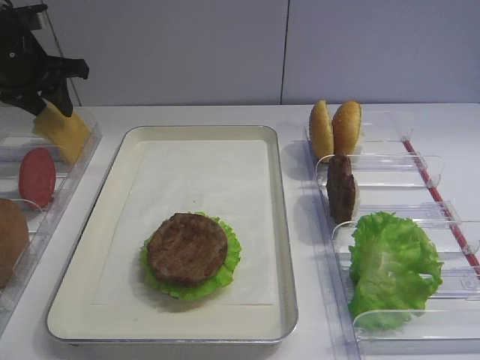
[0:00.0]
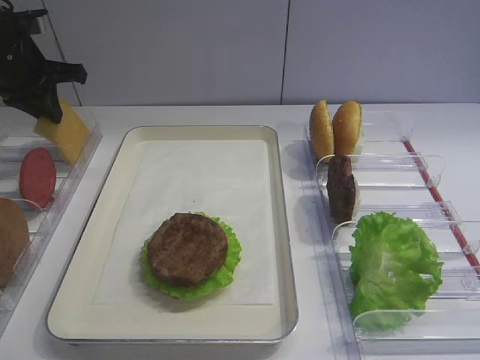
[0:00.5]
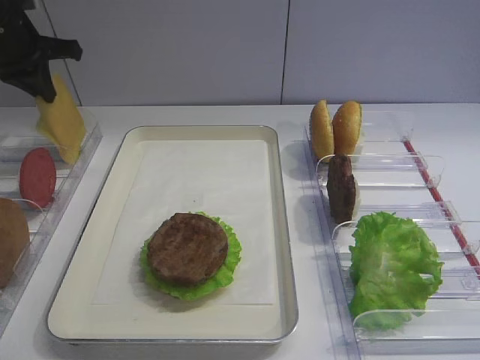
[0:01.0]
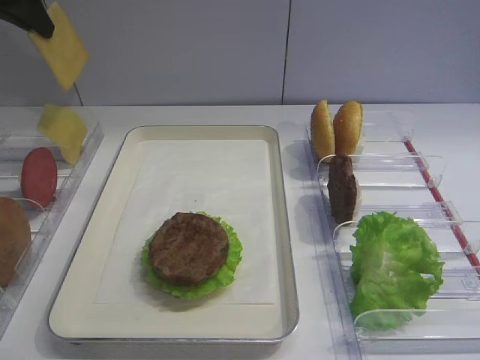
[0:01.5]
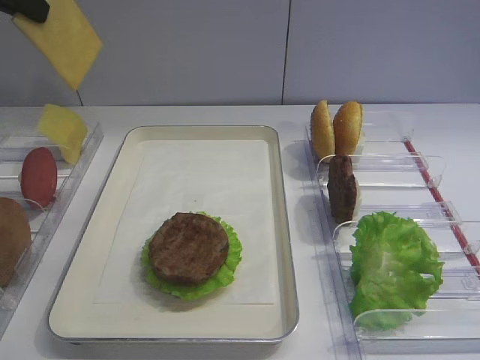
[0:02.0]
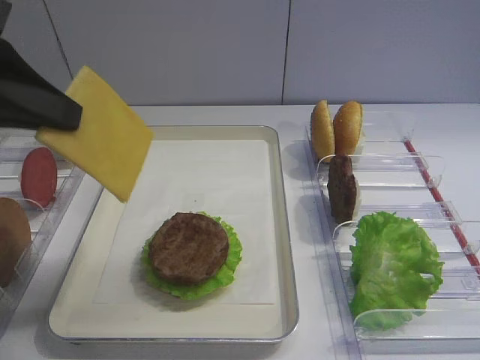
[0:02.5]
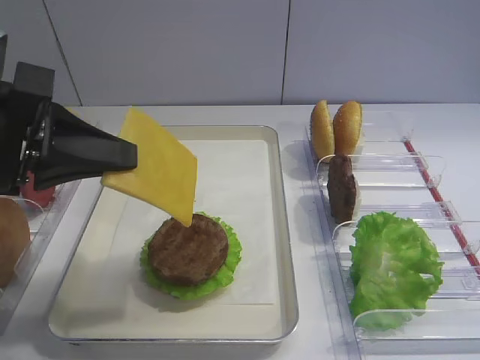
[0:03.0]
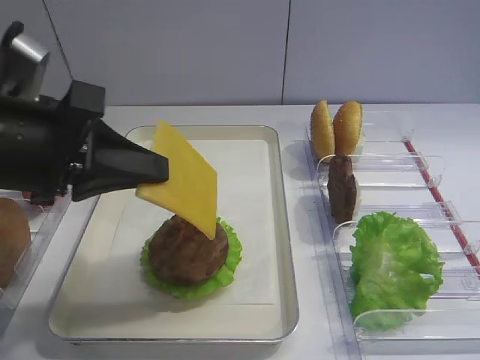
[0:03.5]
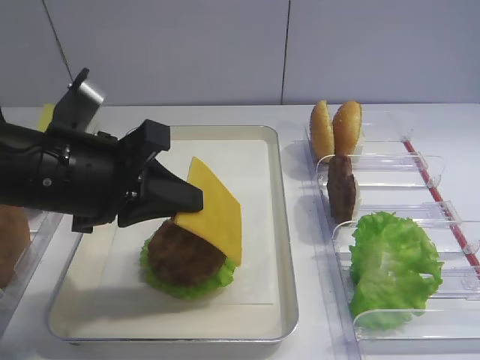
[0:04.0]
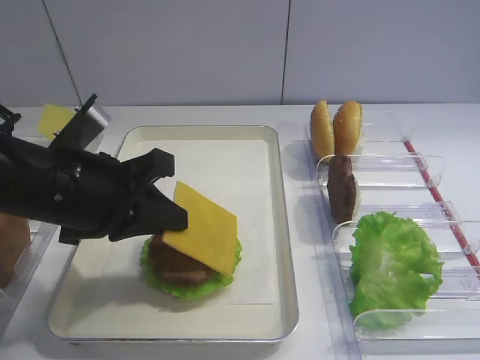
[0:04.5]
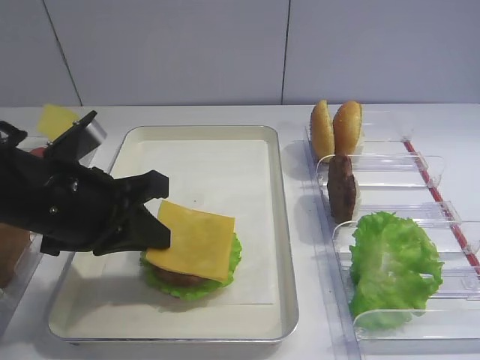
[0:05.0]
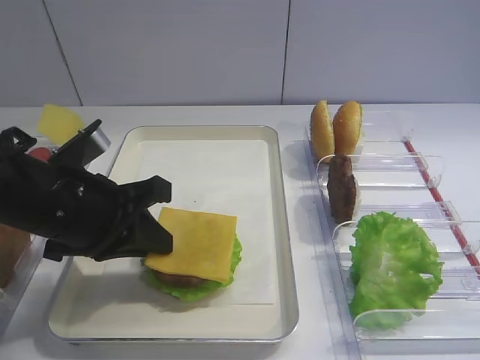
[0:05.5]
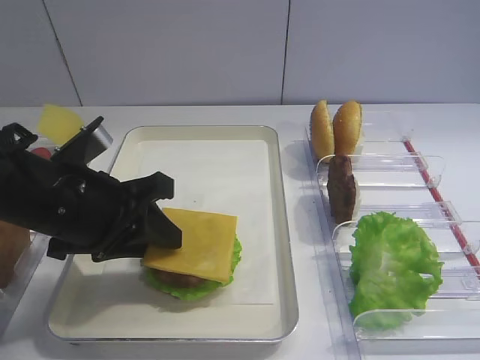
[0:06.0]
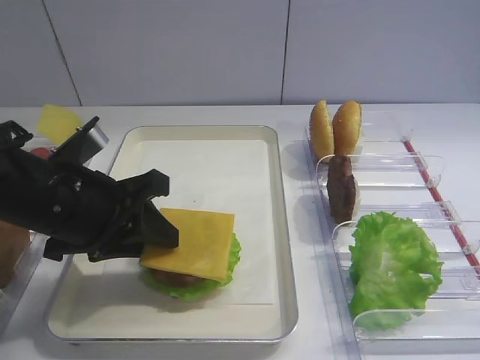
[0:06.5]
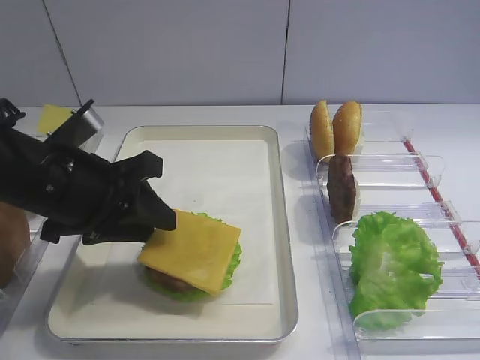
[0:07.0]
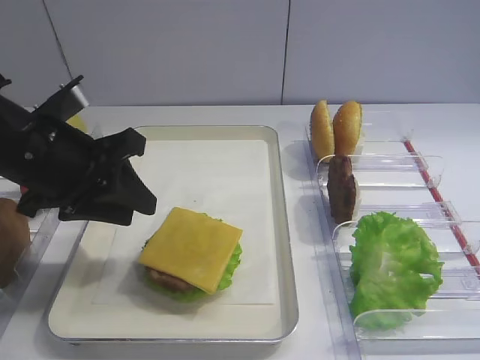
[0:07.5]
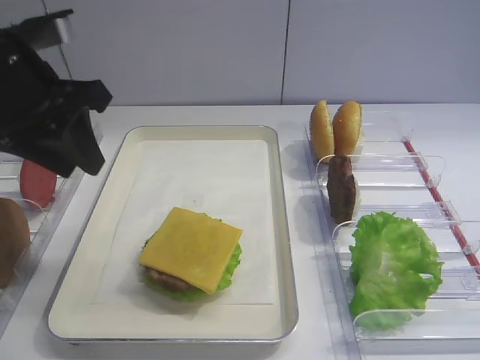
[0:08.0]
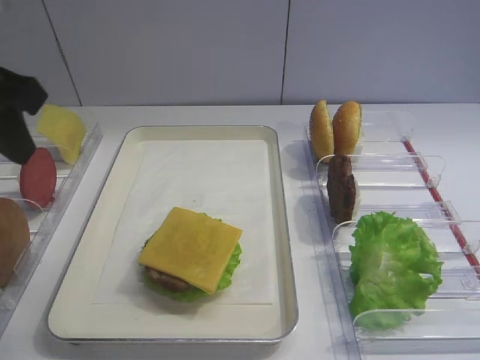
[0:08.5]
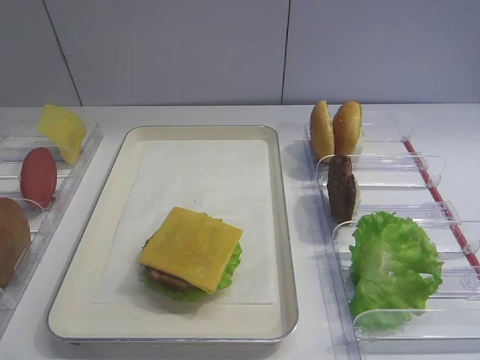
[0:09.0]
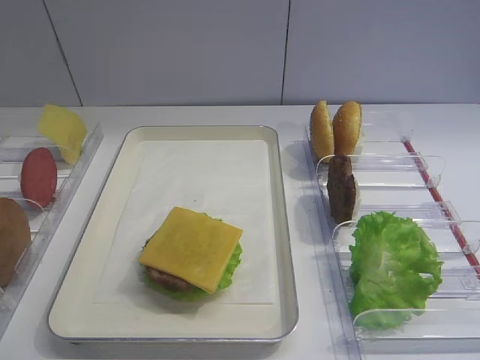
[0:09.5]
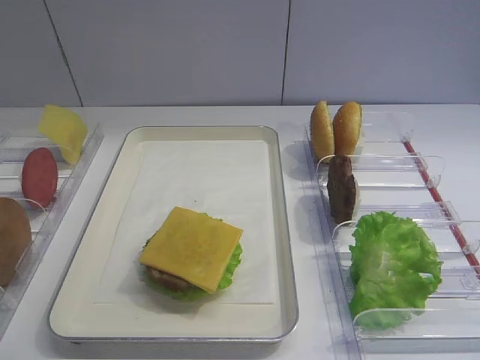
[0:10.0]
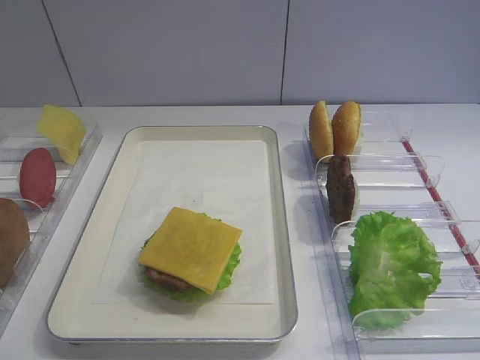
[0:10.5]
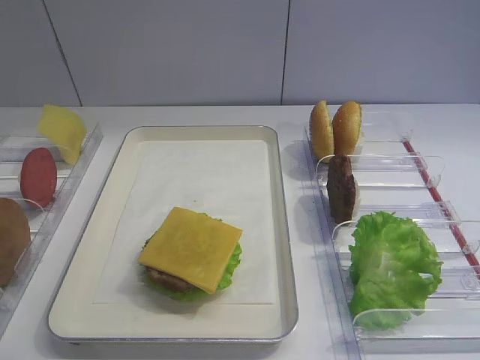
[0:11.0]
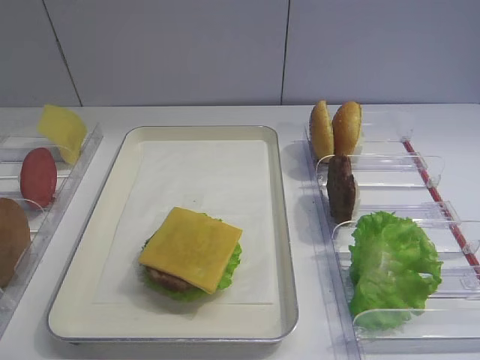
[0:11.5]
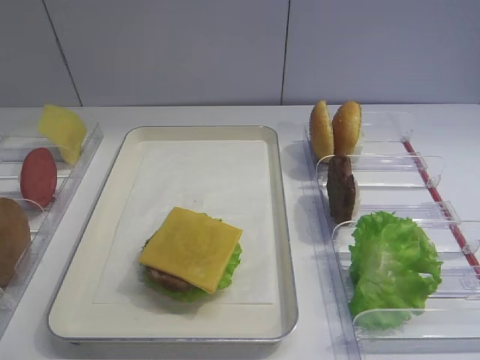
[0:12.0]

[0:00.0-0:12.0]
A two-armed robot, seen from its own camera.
Step, 0:01.5 to 0:07.5: Place the cheese slice on the cutlet with the left gripper.
0:00.0 to 0:02.0: The left gripper is displaced upward and backward by some 20 cm, and closes up.
0:02.0 to 0:04.0: The left gripper shifts some 20 cm downward, to the right and backward.
0:04.0 to 0:06.0: The left gripper opens.
0:06.0 to 0:08.0: The left gripper travels upward by approximately 10 cm.
0:08.0 to 0:10.0: The left gripper travels backward by approximately 30 cm.

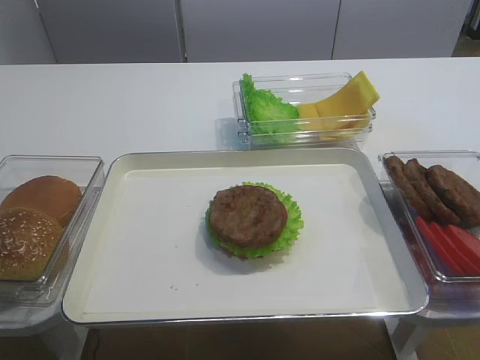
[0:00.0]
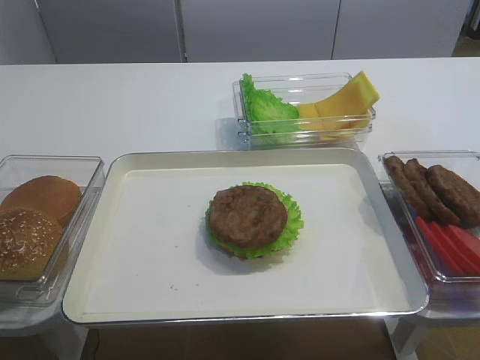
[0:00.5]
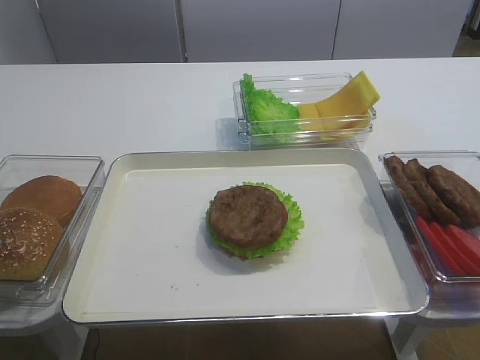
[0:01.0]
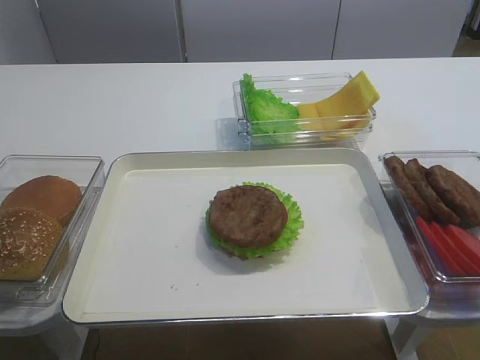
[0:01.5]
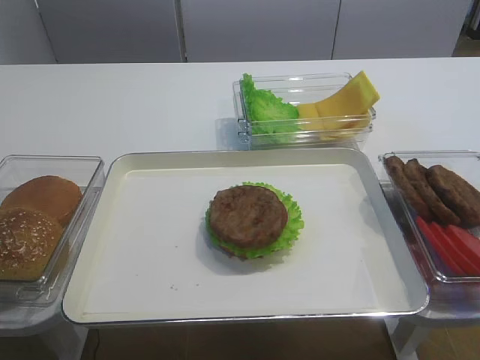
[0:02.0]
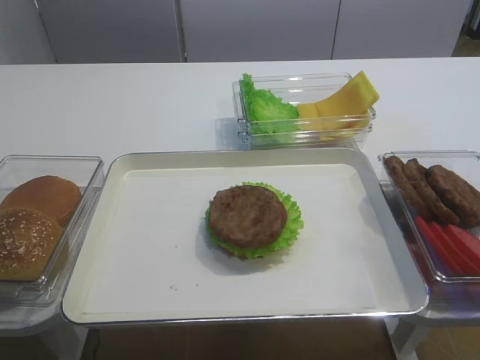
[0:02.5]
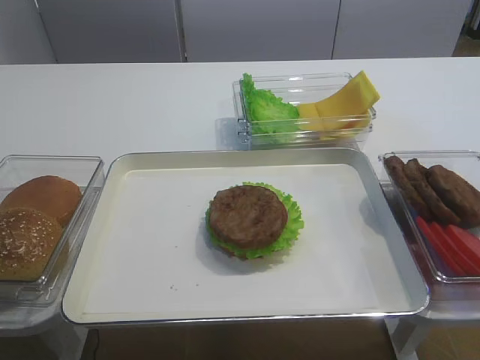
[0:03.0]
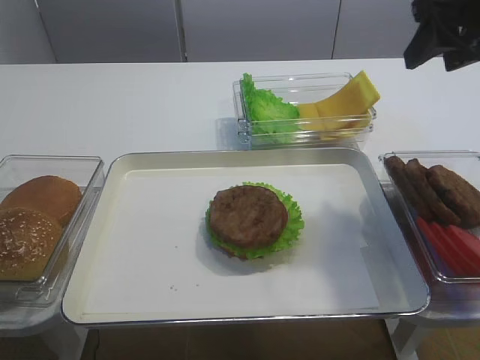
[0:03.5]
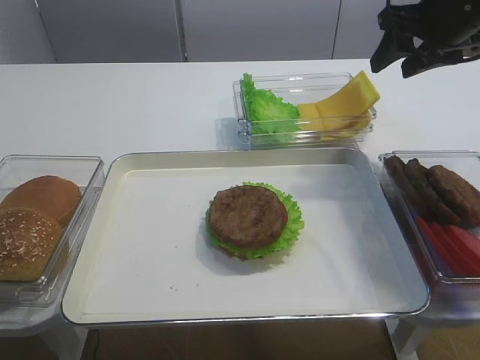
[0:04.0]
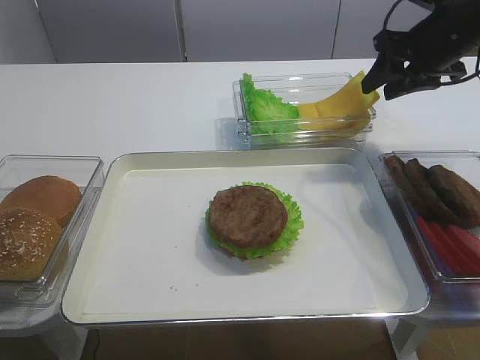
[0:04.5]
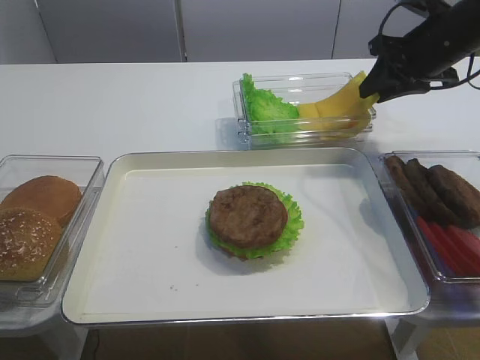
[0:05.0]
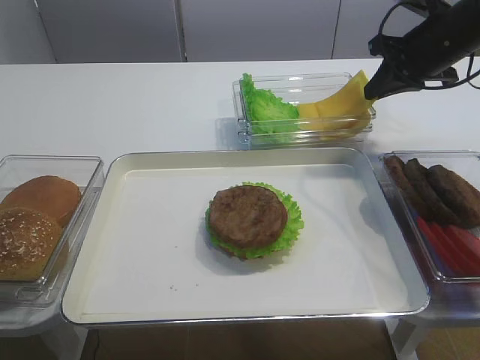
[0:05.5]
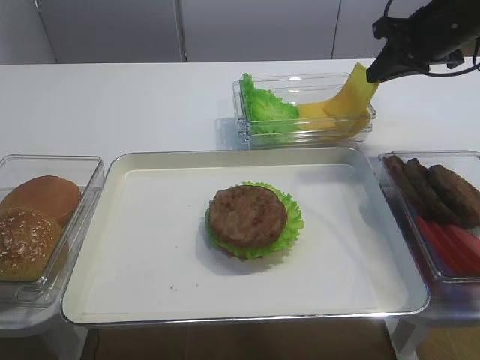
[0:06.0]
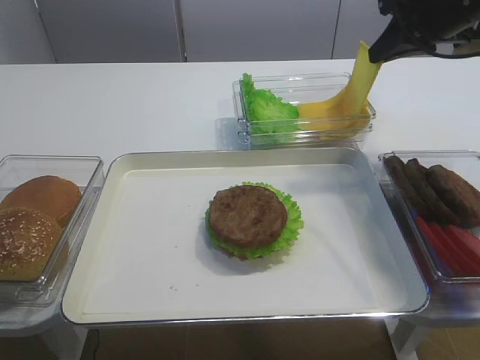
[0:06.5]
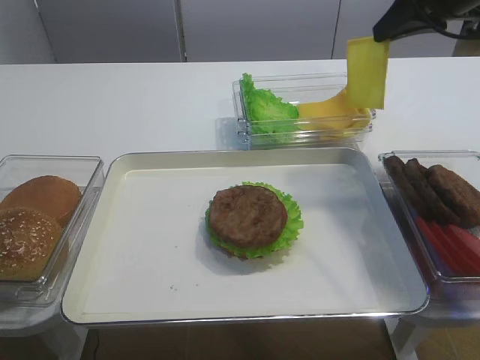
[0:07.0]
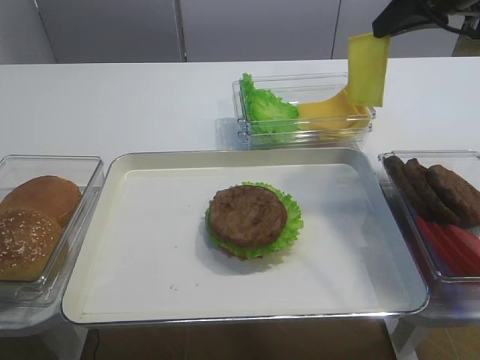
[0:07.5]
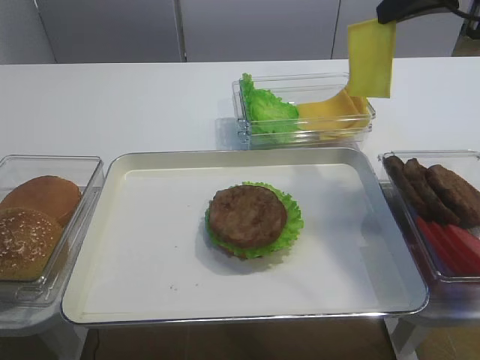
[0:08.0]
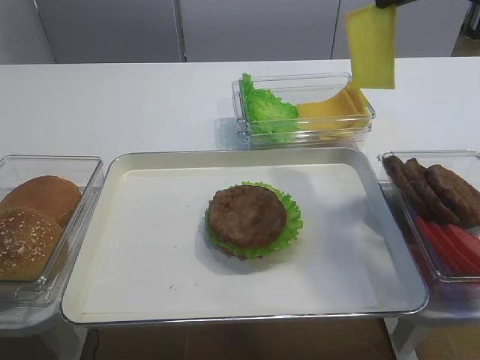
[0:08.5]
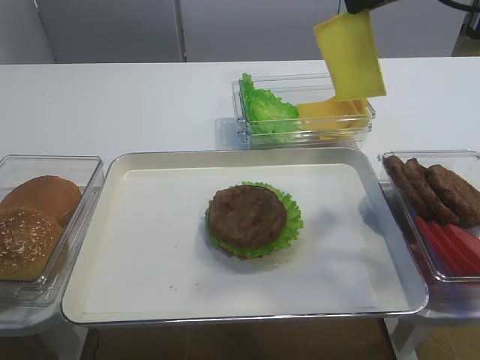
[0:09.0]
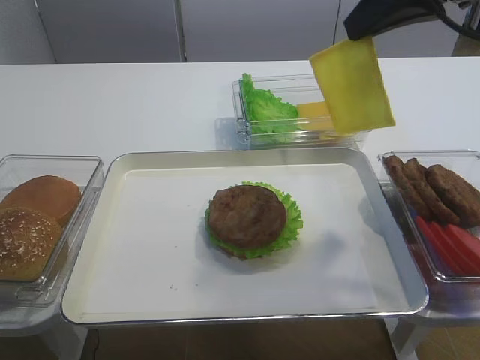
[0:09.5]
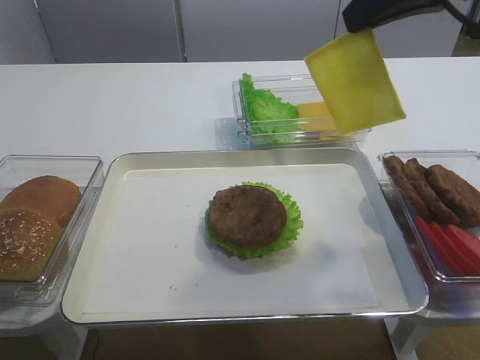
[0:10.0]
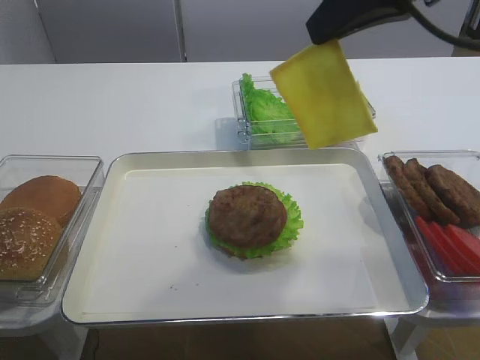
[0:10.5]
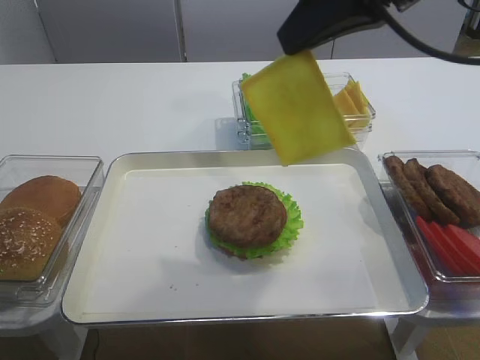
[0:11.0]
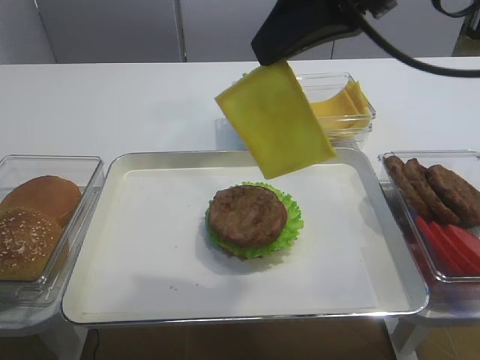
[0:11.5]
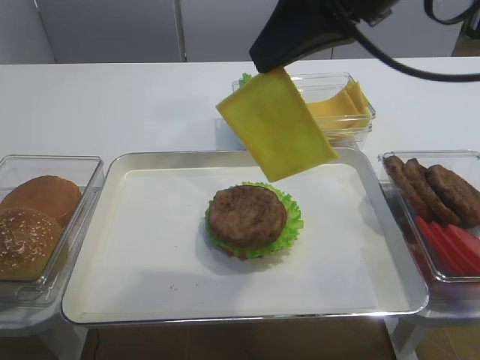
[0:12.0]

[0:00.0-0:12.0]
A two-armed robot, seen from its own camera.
Step, 0:00.0 to 0:06.0: Pick up the cheese slice with the right gripper.
0:02.0 to 0:04.0: The right gripper travels forward by roughly 40 cm.
0:04.0 to 0:06.0: The right gripper closes.
0:06.0 to 0:08.0: The right gripper travels upward and backward by approximately 10 cm.
0:08.0 to 0:10.0: The right gripper is displaced backward and to the left by approximately 10 cm.
0:10.0 to 0:12.0: The right gripper is displaced to the left by some 5 cm.

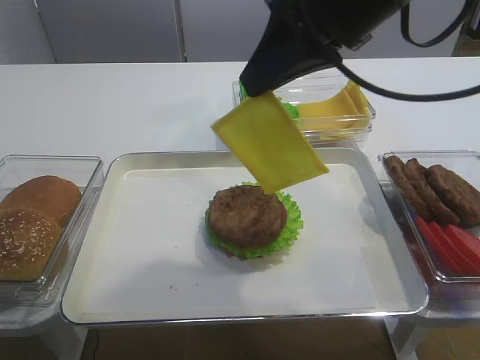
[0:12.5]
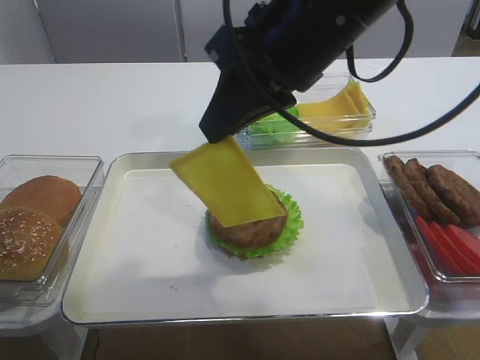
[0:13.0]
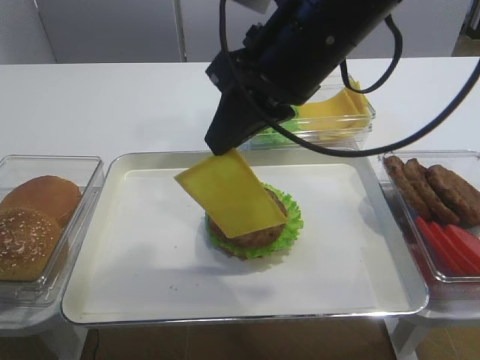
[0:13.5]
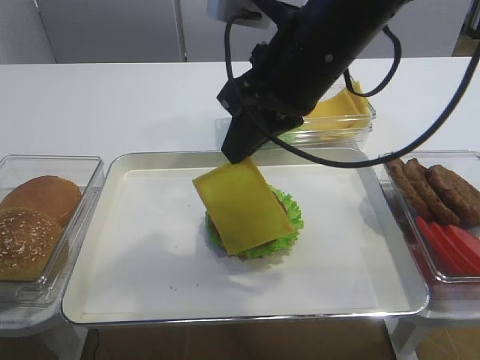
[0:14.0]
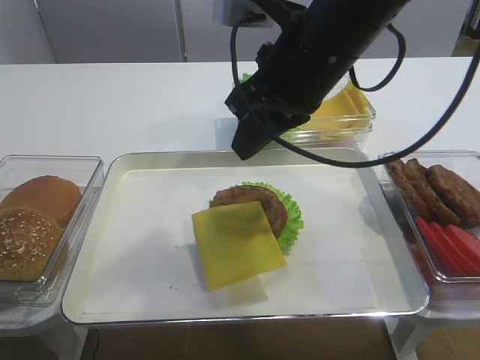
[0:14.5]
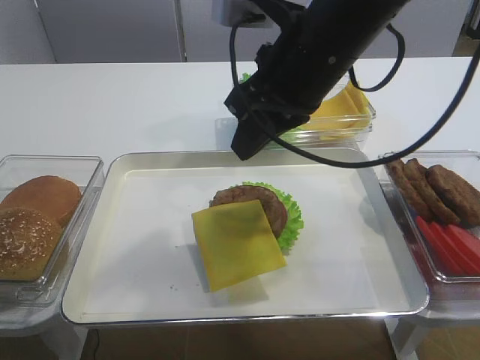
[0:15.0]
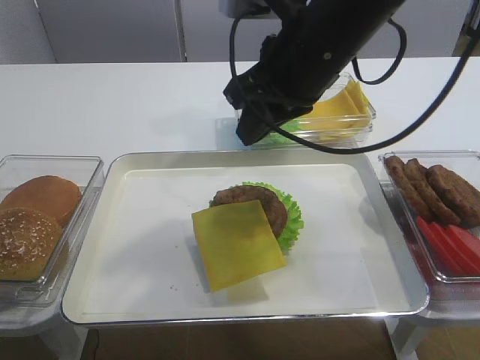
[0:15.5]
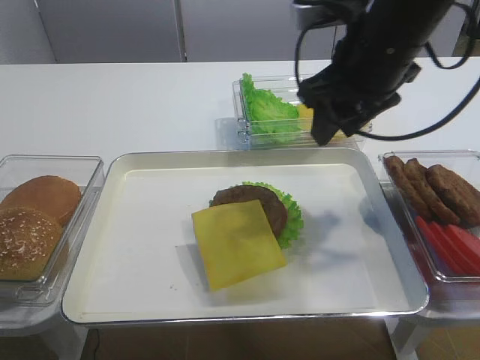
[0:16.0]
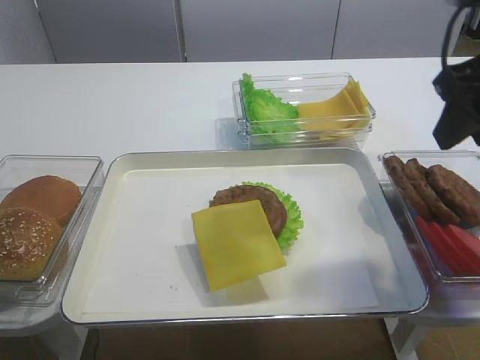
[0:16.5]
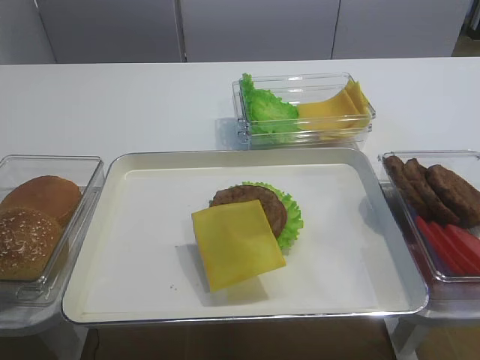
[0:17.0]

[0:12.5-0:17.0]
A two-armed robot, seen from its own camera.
Step, 0:12.5 to 0:15.0: Place the cheese slice on the cutlet with the right gripper.
0:12.5 to 0:14.5: The right gripper shifts approximately 5 cm downward.
0:14.5 to 0:17.0: The right gripper moves to the right and backward, roughly 25 cm, and opens its fingers.
